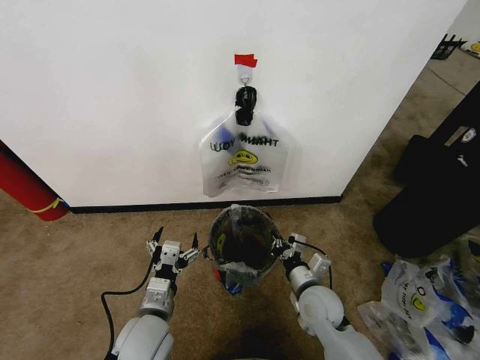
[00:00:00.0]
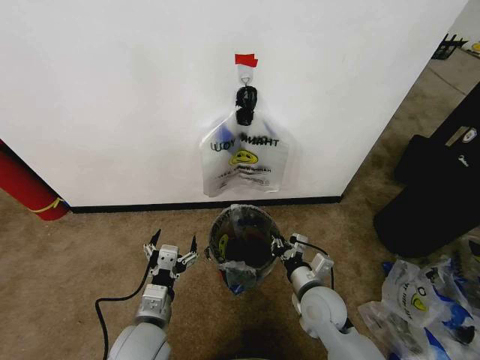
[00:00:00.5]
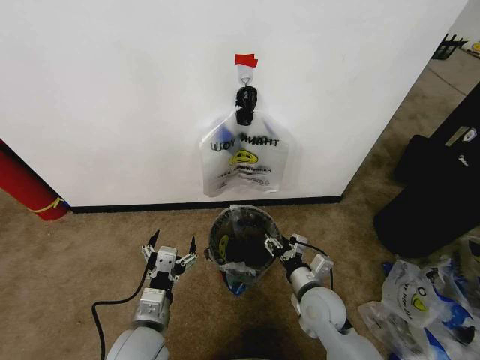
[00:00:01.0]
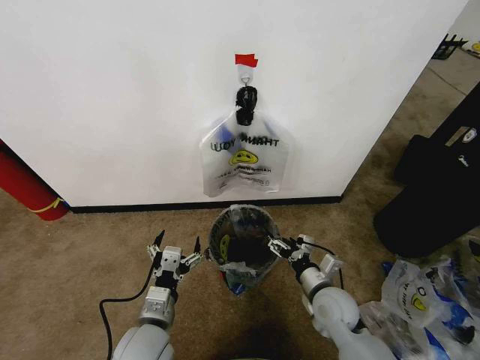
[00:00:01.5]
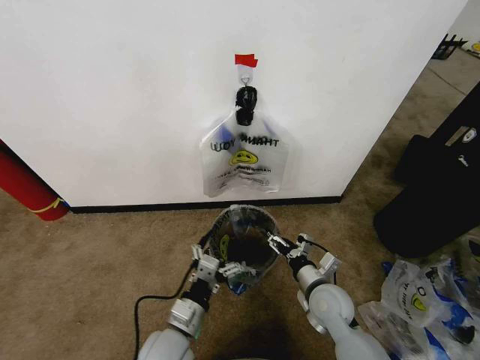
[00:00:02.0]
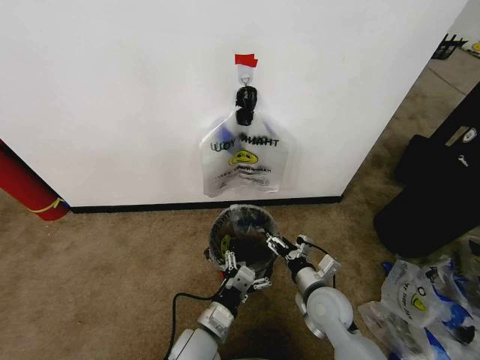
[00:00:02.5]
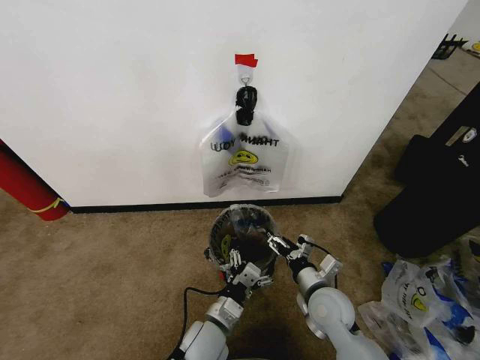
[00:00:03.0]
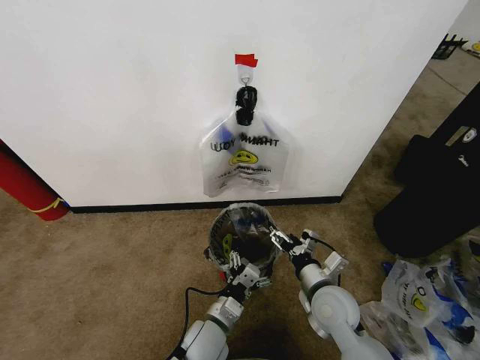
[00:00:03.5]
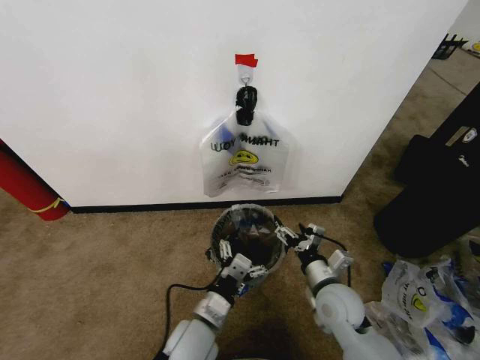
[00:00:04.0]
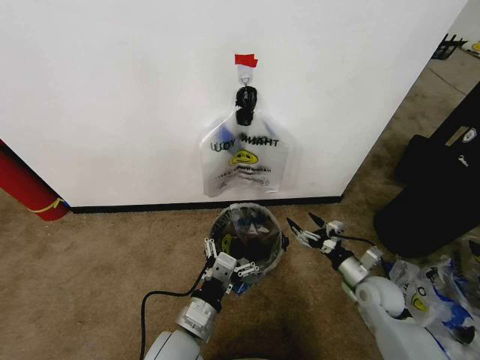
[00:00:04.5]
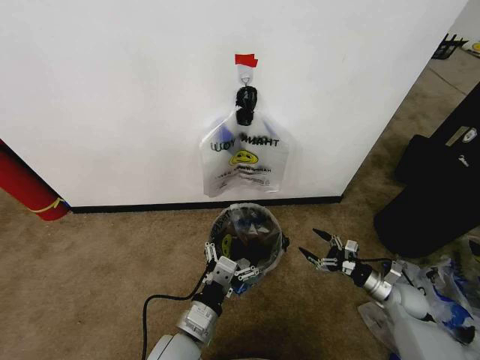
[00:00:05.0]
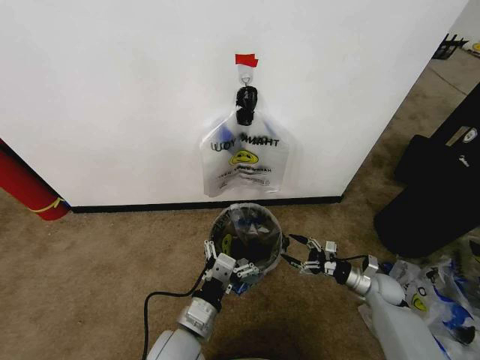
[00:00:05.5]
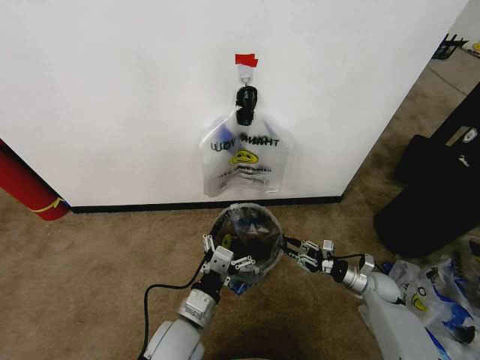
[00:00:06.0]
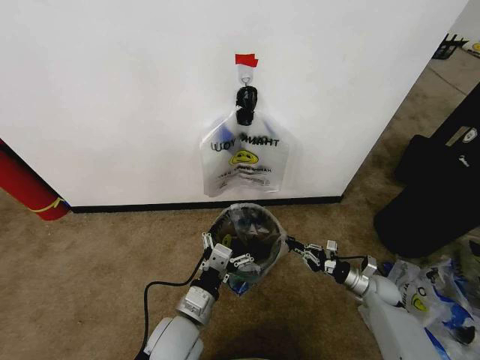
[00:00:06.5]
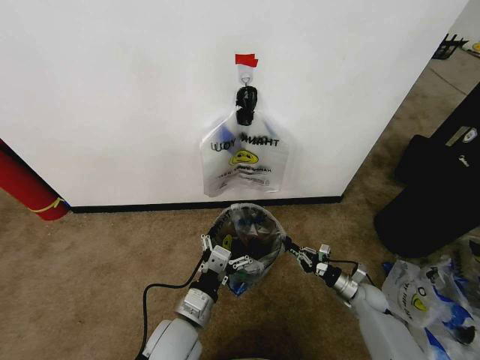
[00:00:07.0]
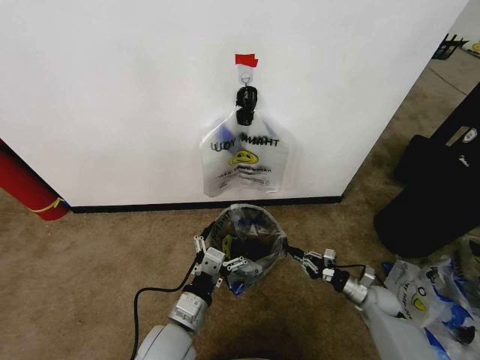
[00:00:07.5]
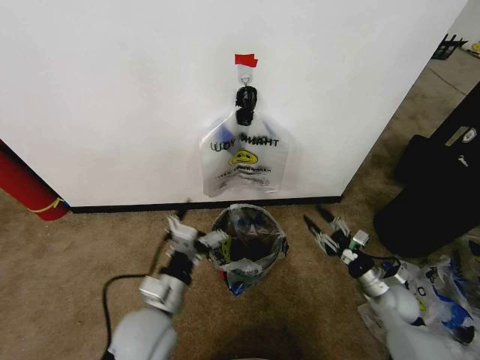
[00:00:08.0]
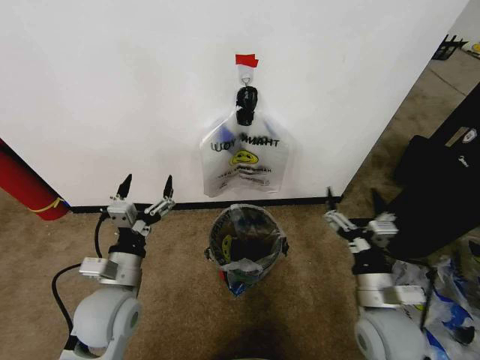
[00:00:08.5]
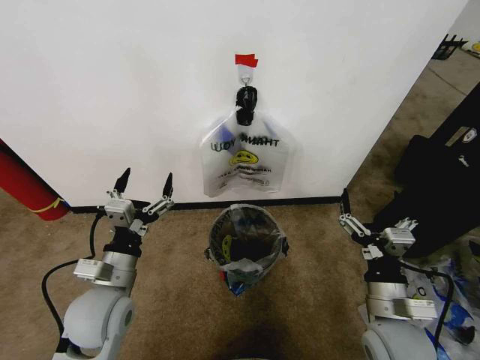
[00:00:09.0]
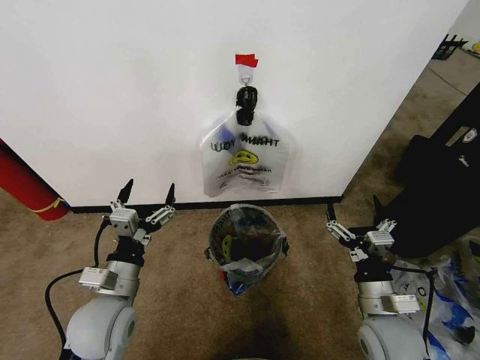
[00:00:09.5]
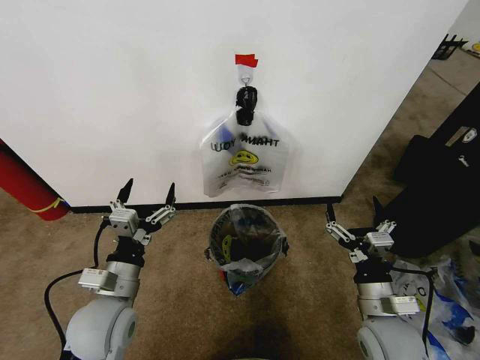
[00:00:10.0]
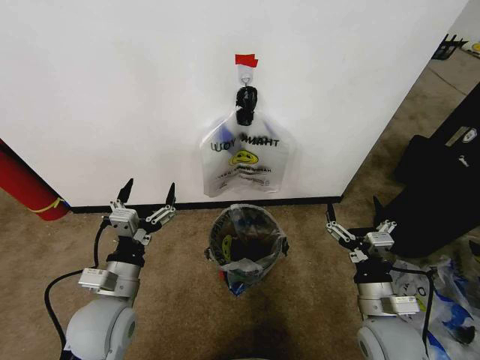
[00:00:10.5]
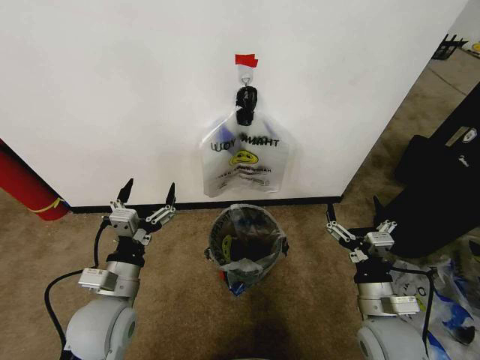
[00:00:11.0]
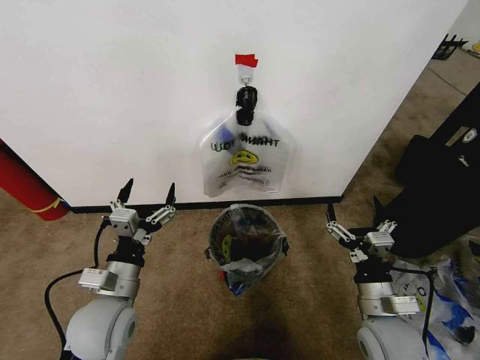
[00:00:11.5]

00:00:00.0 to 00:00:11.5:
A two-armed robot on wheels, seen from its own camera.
Task of the whole recording: Pick up the garbage bag from the wall and place it over the trash bin.
00:00:00.0 to 00:00:02.0: The left gripper shifts by roughly 5 cm, while the right gripper opens its fingers.
00:00:04.0 to 00:00:06.0: The left gripper moves about 5 cm, while the right gripper is displaced to the right, downward and forward by roughly 25 cm, and closes up.
00:00:06.0 to 00:00:07.5: The grippers stay close to where they were, moving slightly.
00:00:07.5 to 00:00:09.5: The right gripper travels upward, backward and to the left by about 25 cm, and opens its fingers. Meanwhile the left gripper moves to the left and upward, some 10 cm.
00:00:09.5 to 00:00:11.5: Both grippers stay about where they are.
